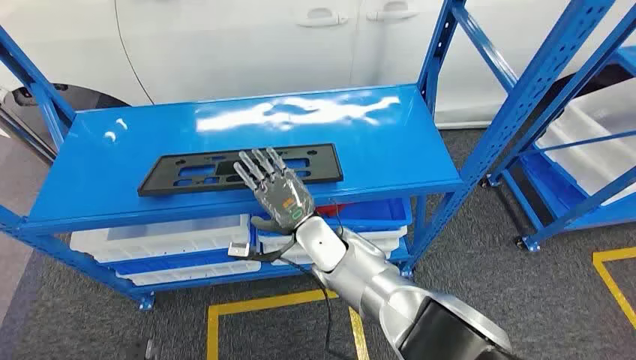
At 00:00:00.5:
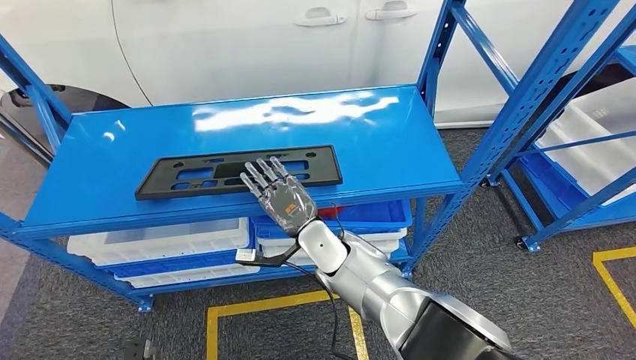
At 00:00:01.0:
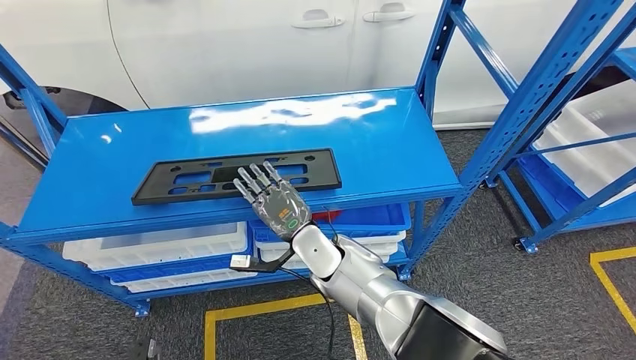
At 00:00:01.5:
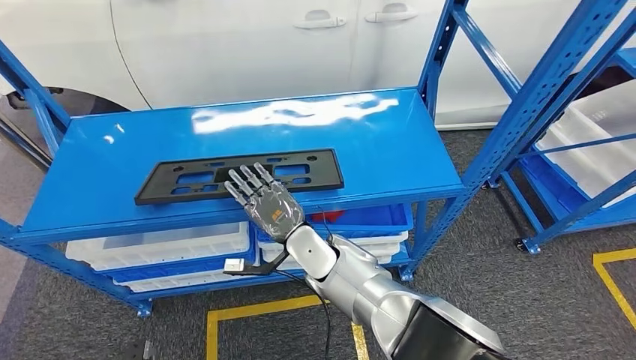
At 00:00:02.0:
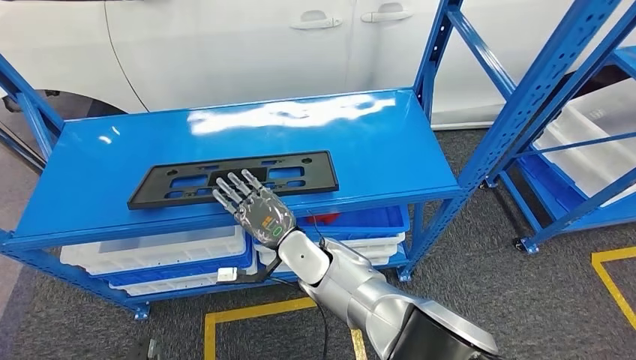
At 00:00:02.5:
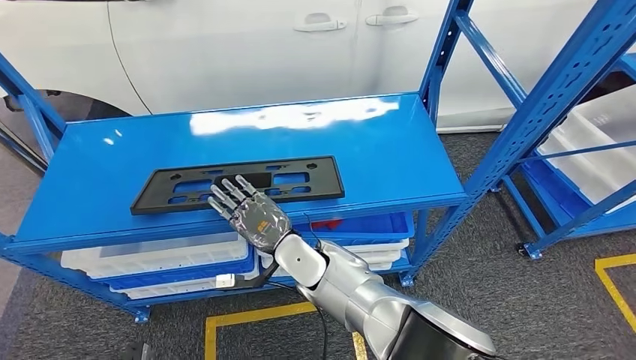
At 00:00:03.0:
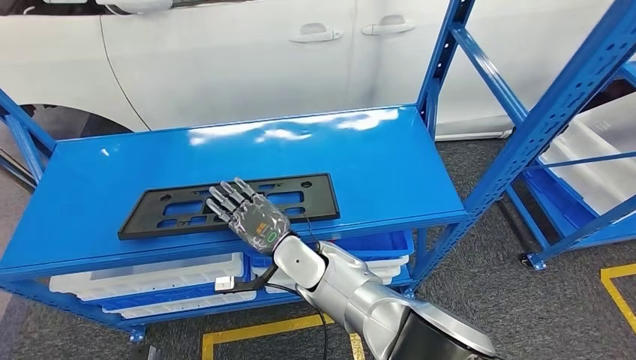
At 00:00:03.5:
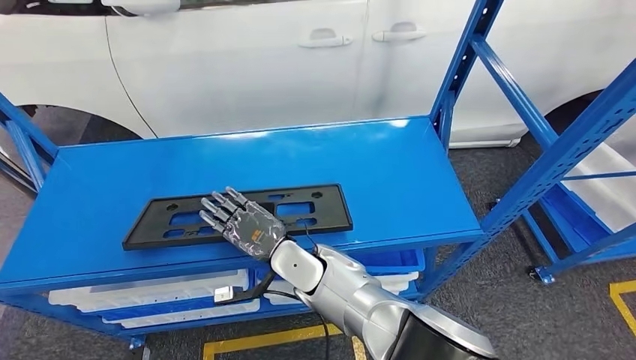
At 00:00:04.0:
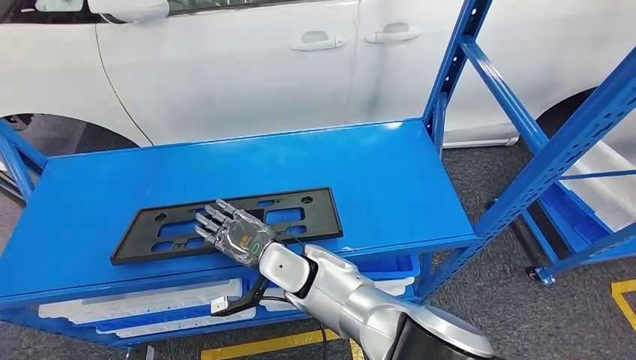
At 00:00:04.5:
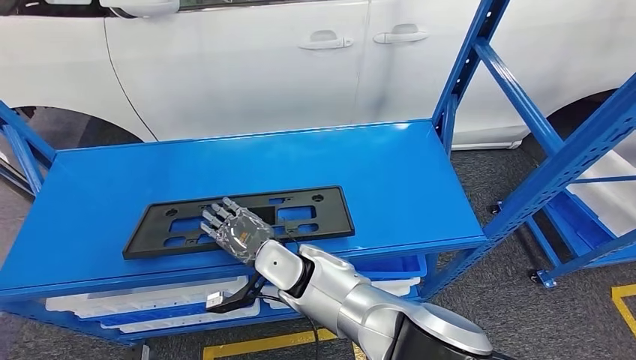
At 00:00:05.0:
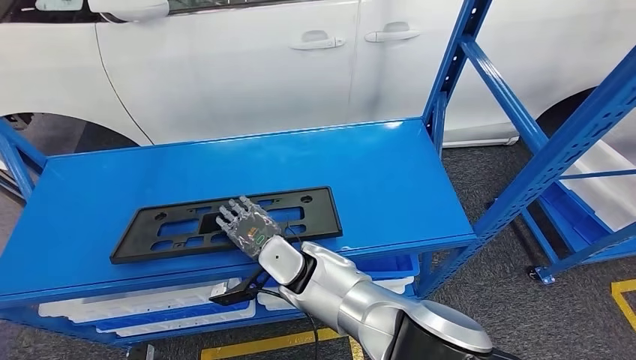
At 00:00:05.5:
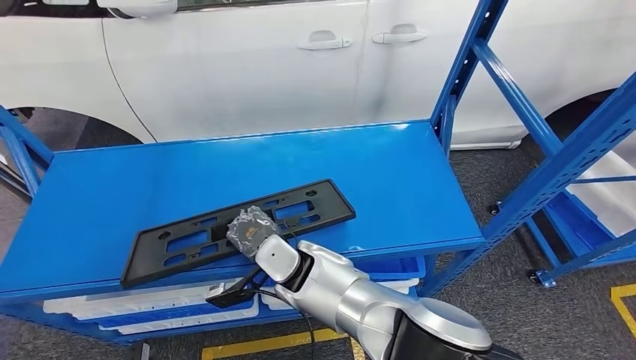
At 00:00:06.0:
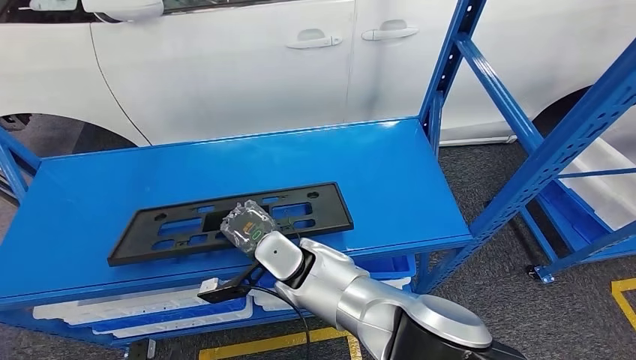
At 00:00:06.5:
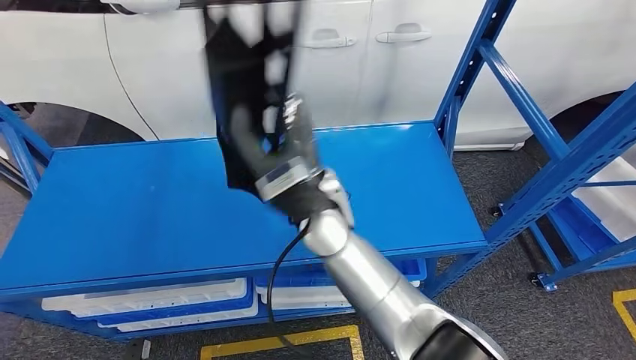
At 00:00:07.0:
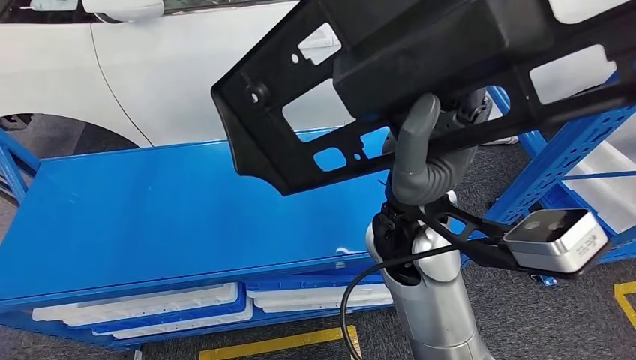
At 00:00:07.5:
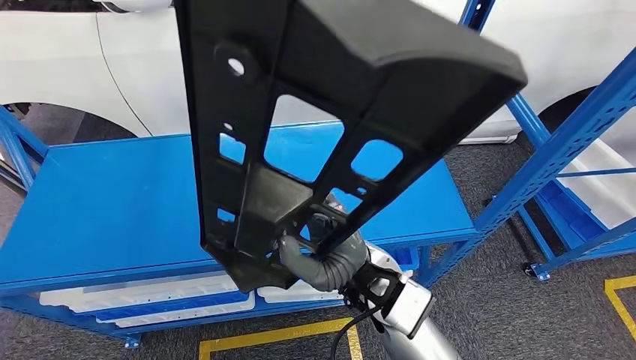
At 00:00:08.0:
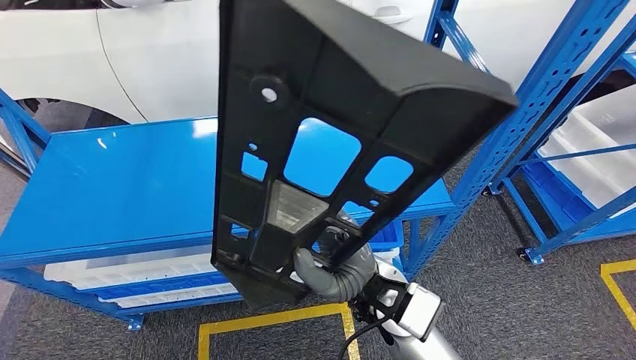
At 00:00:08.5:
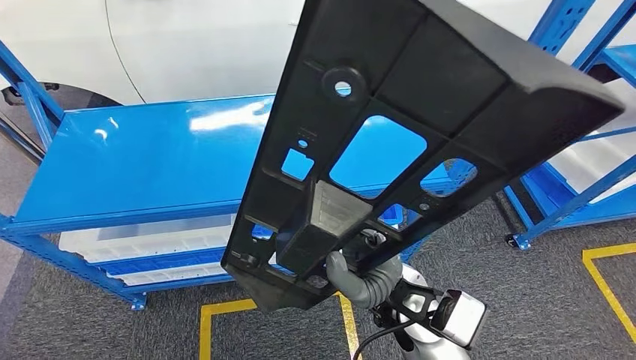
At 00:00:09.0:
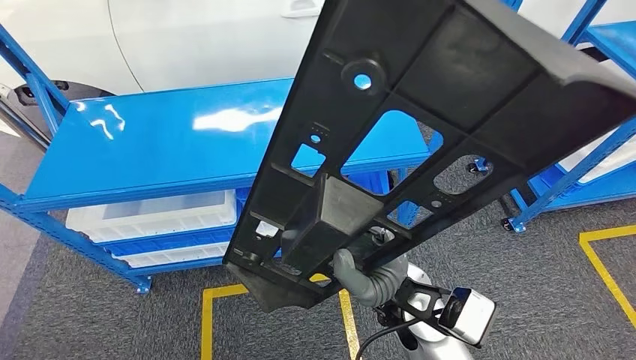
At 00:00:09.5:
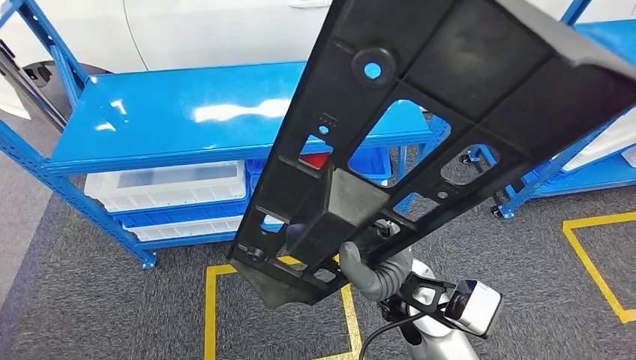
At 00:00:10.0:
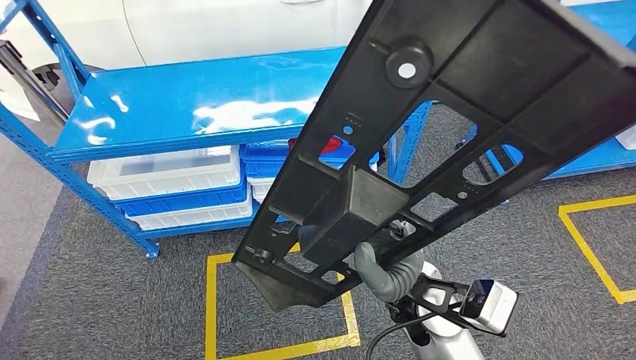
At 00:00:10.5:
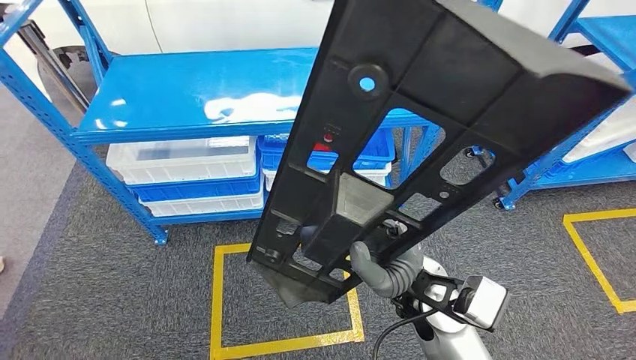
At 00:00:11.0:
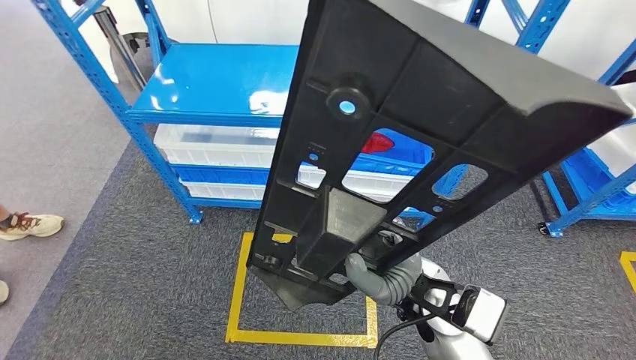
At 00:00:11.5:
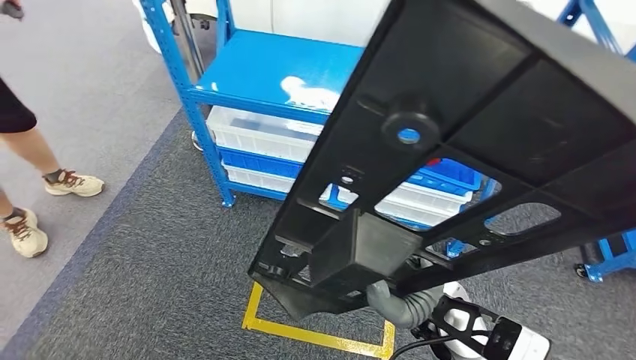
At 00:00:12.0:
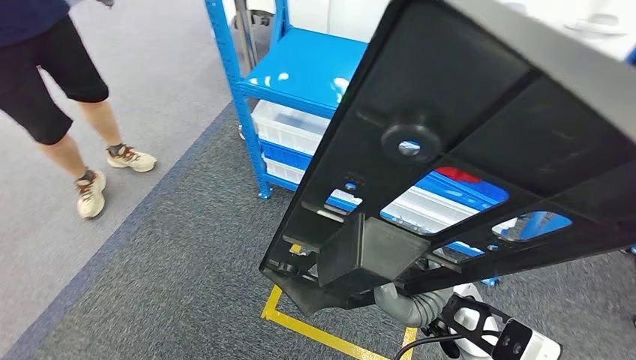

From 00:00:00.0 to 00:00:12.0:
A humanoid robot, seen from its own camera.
Step, from 00:00:00.0 to 00:00:07.0: Pick up the large material from the shelf.

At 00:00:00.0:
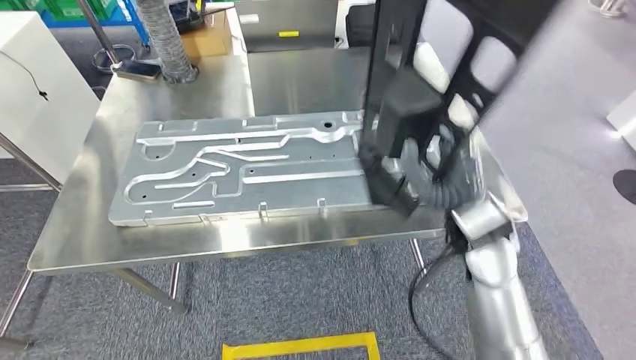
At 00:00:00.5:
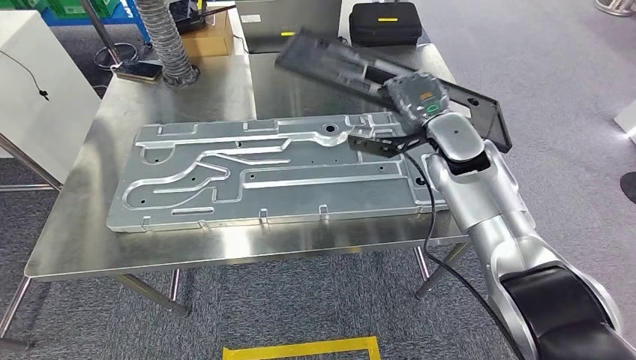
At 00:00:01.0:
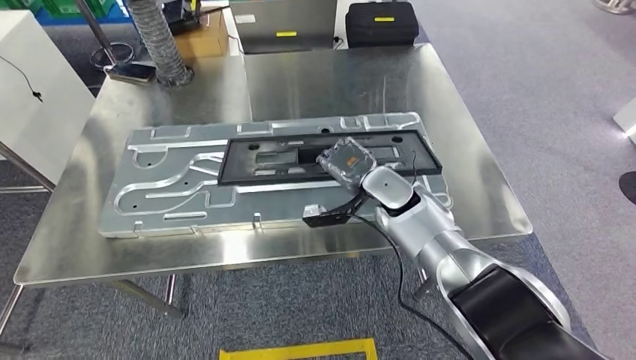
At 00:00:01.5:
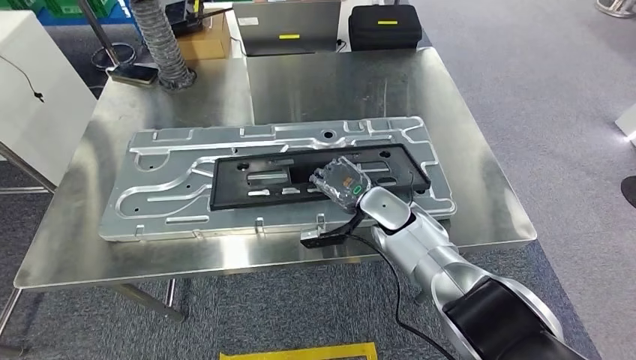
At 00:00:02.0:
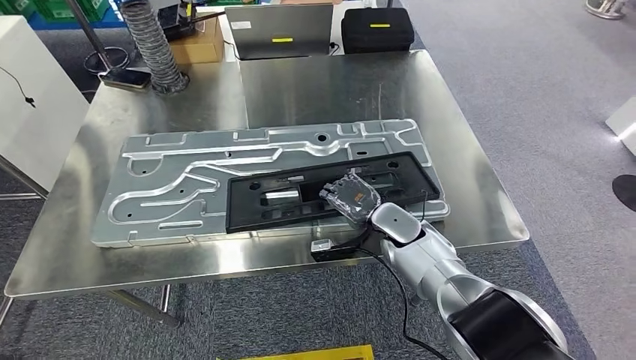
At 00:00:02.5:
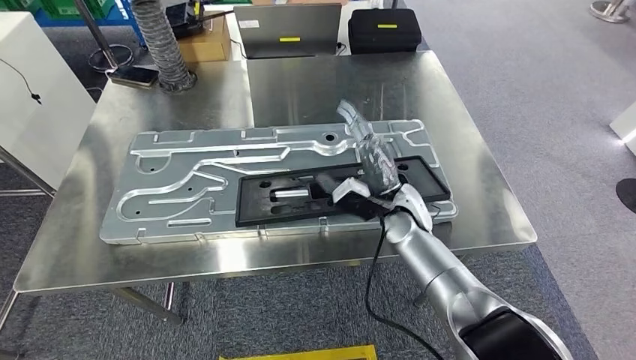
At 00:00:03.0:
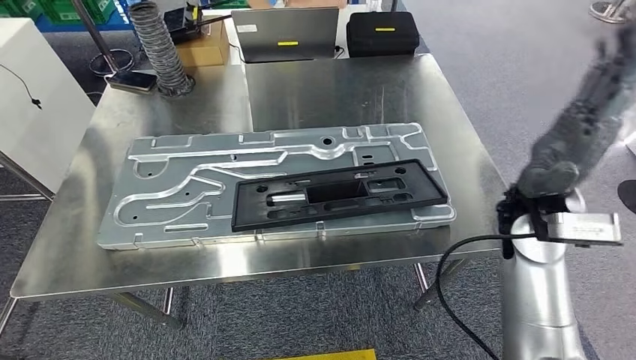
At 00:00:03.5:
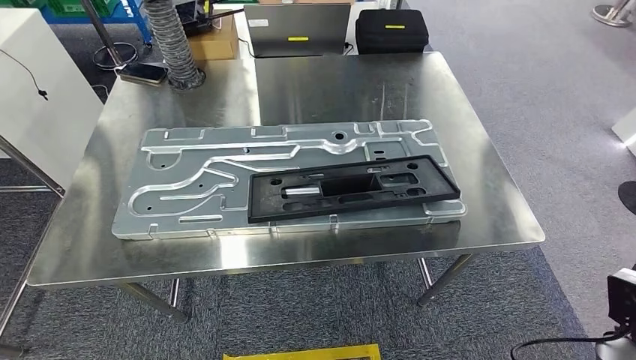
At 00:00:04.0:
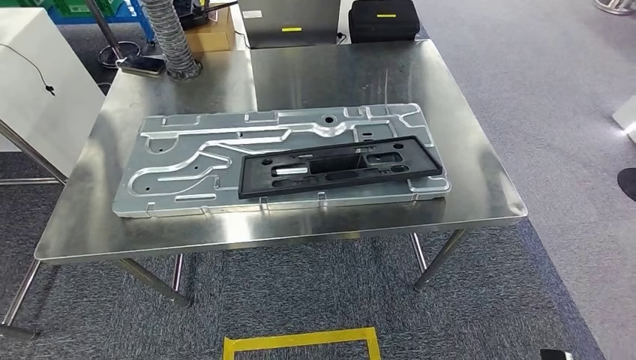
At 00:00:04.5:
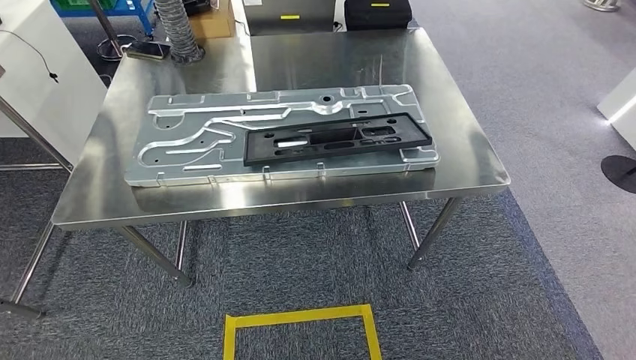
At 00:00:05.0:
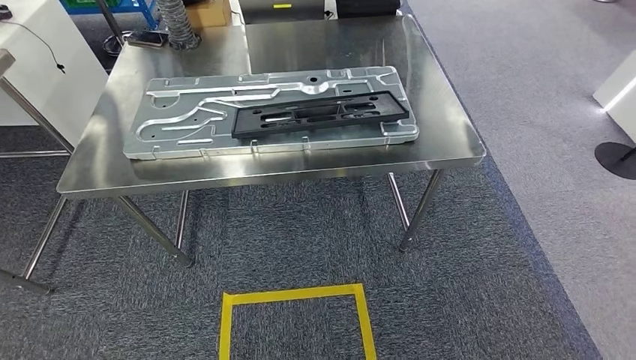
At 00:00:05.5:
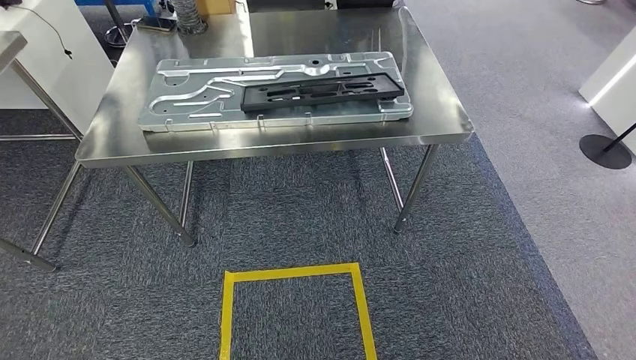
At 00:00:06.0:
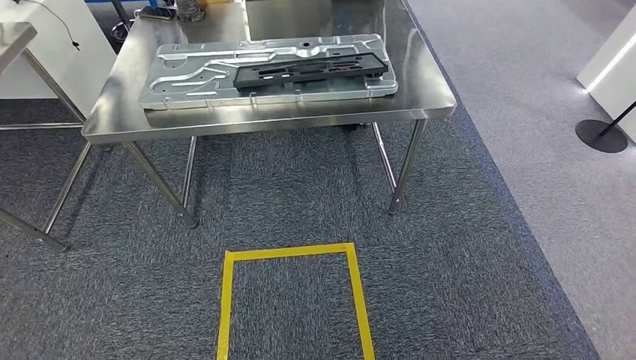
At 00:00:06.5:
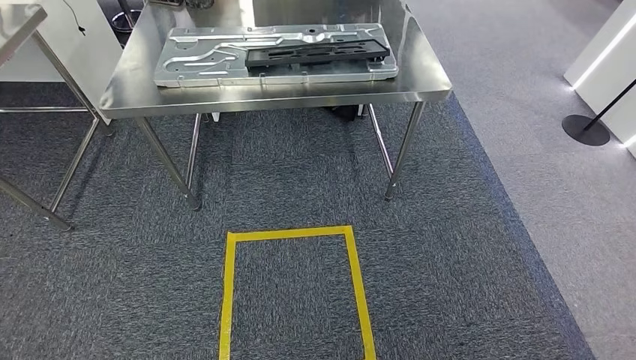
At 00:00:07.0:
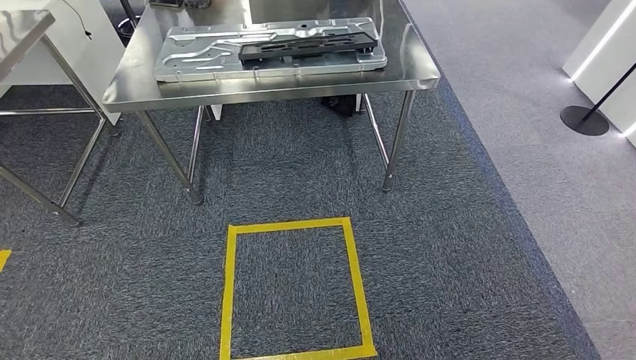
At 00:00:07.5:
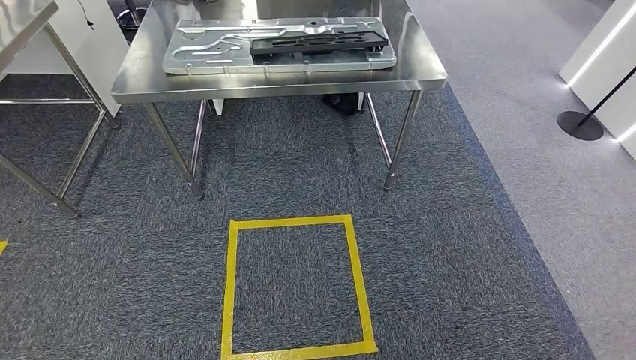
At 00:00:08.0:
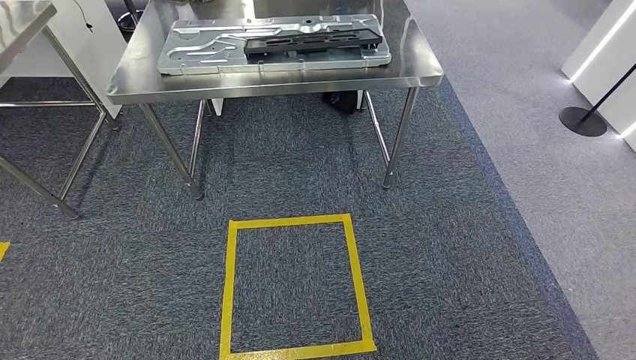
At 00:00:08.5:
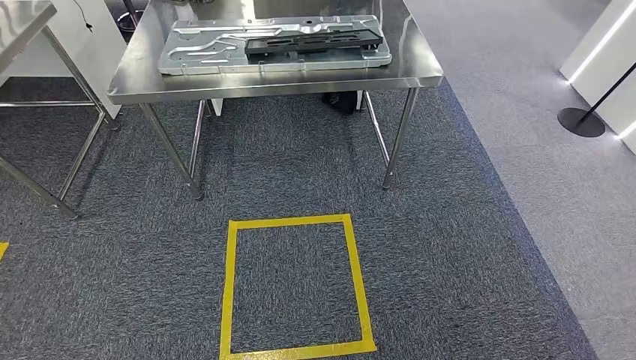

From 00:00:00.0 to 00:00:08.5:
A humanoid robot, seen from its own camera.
Step, from 00:00:00.0 to 00:00:04.0: Insert the large material into the corresponding slot on the workbench.
Step, from 00:00:04.5 to 00:00:08.0: Return to the initial position at the shelf.
From 00:00:06.5 to 00:00:08.5: The hands stay close to where they were, moving slightly.
